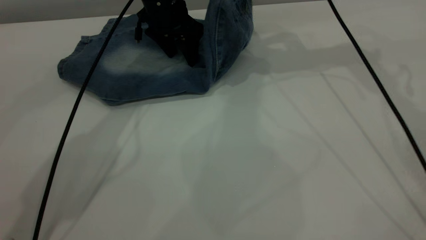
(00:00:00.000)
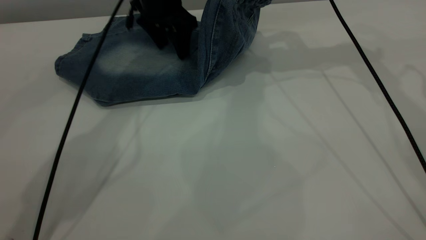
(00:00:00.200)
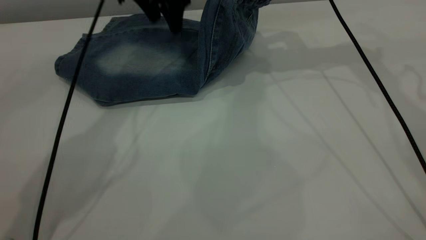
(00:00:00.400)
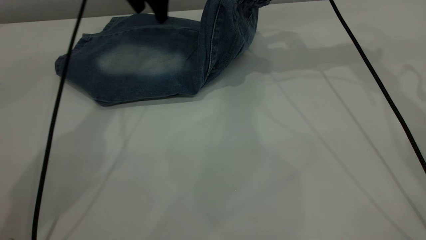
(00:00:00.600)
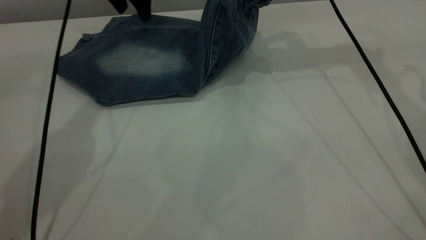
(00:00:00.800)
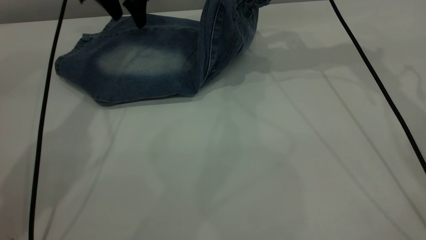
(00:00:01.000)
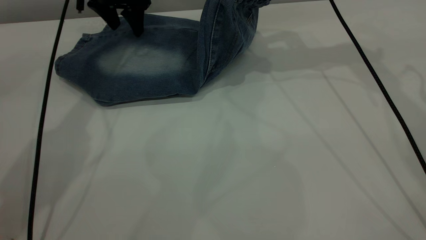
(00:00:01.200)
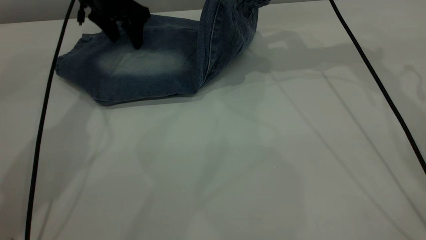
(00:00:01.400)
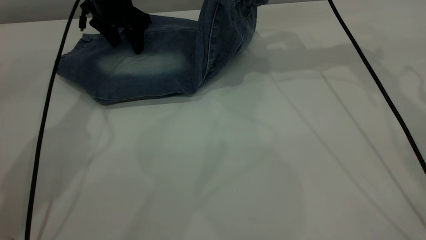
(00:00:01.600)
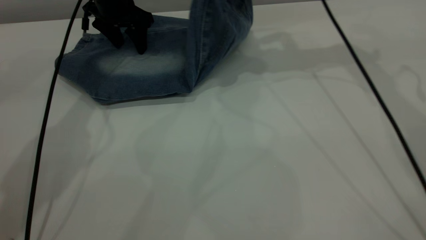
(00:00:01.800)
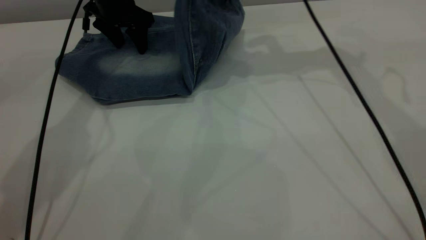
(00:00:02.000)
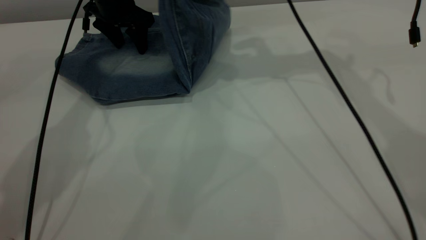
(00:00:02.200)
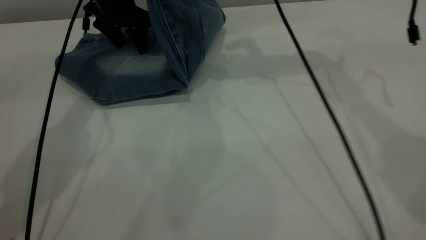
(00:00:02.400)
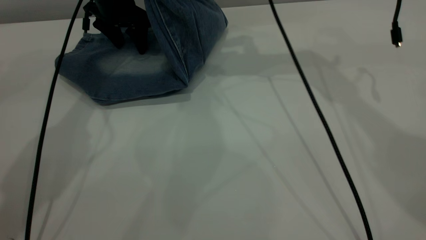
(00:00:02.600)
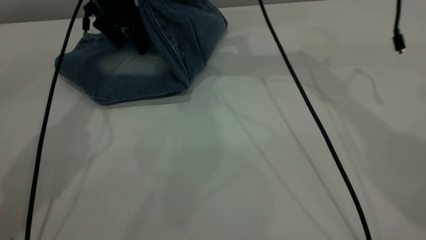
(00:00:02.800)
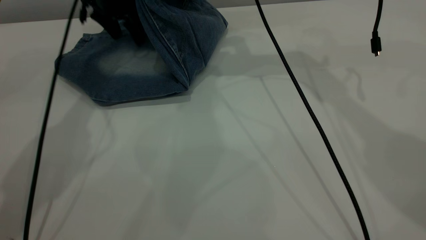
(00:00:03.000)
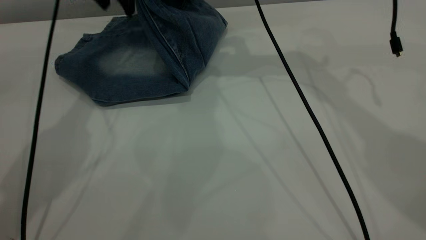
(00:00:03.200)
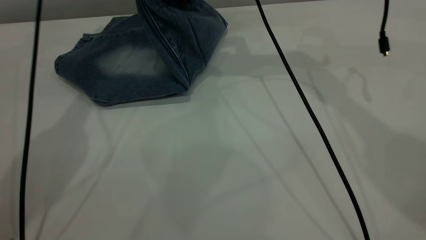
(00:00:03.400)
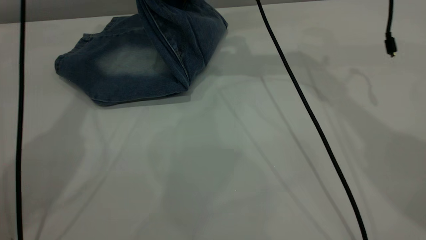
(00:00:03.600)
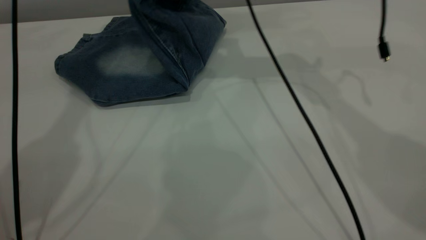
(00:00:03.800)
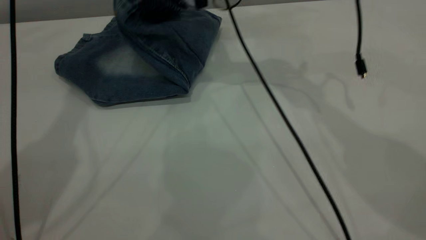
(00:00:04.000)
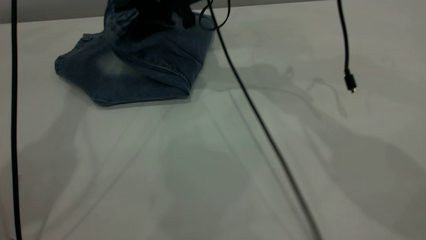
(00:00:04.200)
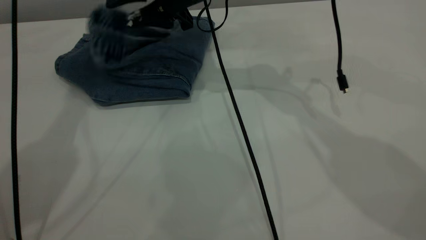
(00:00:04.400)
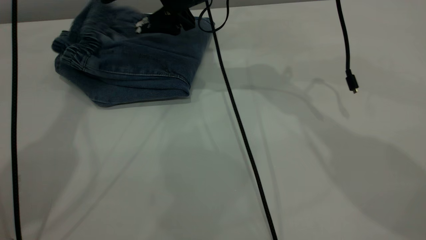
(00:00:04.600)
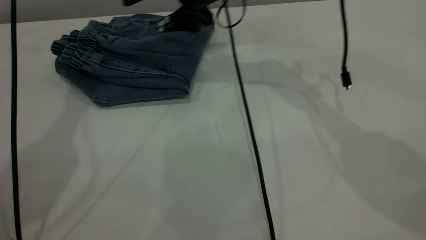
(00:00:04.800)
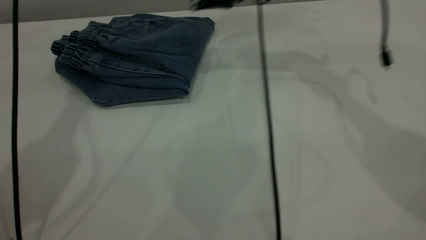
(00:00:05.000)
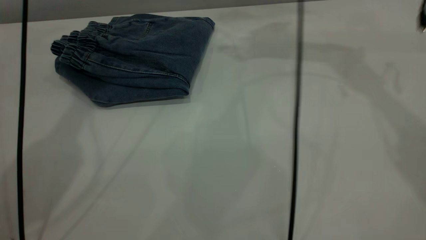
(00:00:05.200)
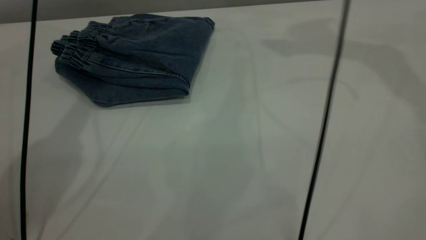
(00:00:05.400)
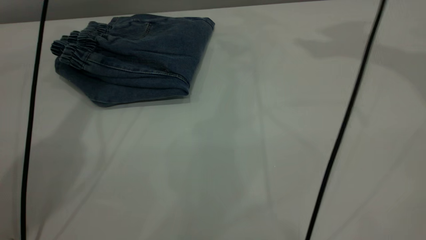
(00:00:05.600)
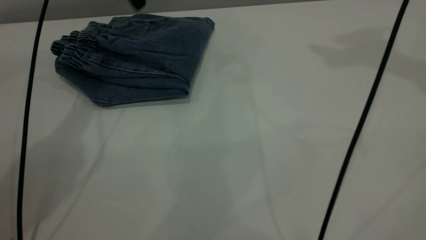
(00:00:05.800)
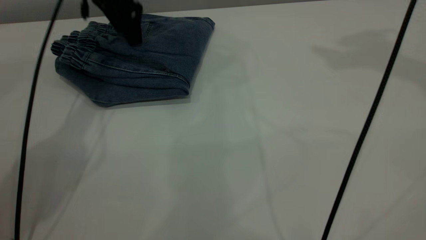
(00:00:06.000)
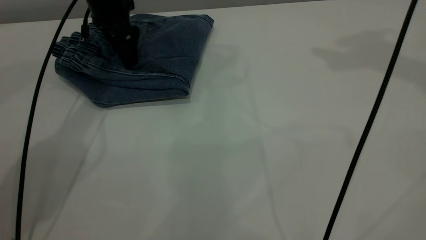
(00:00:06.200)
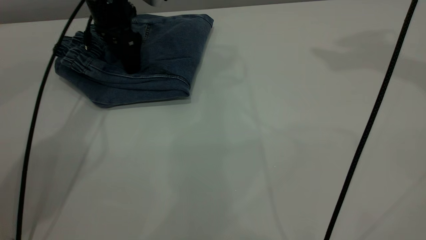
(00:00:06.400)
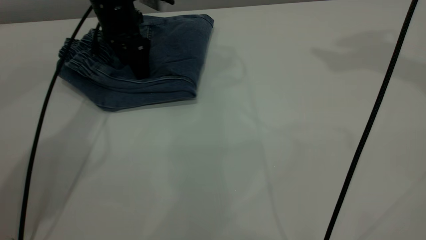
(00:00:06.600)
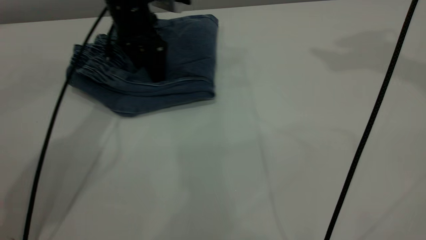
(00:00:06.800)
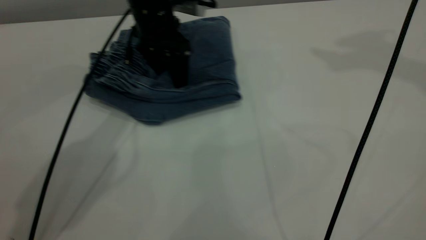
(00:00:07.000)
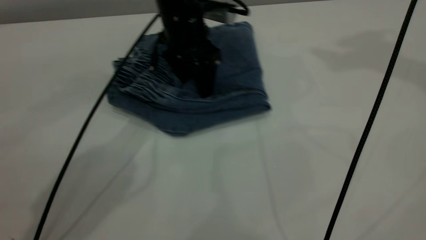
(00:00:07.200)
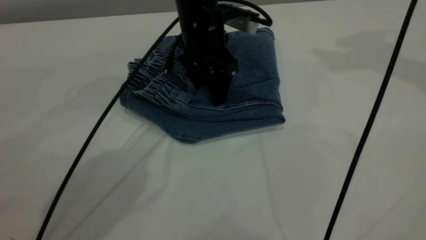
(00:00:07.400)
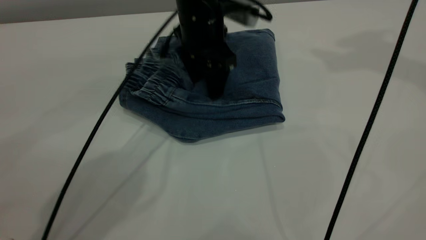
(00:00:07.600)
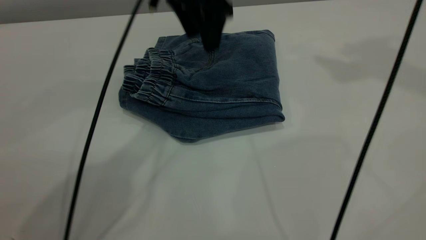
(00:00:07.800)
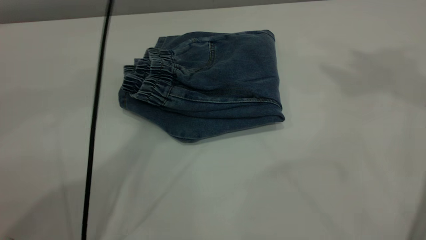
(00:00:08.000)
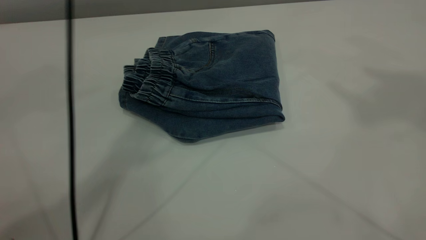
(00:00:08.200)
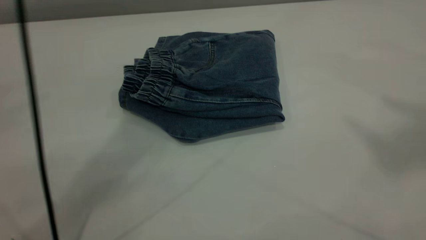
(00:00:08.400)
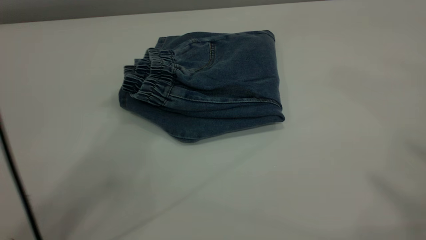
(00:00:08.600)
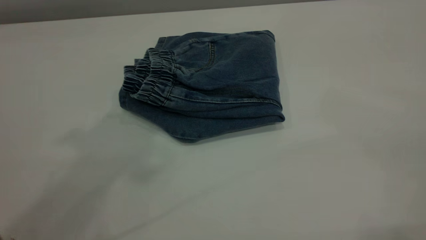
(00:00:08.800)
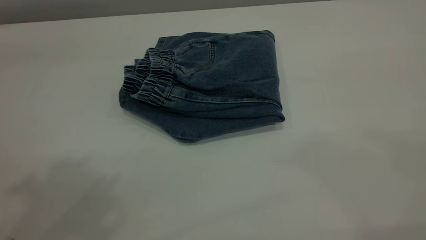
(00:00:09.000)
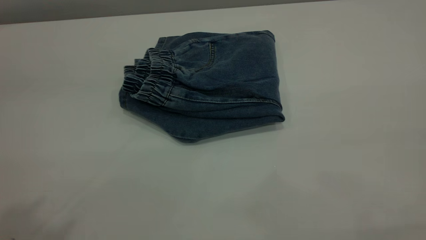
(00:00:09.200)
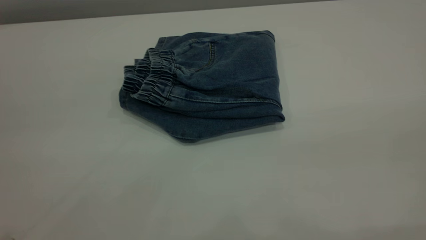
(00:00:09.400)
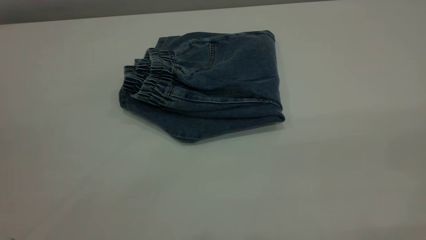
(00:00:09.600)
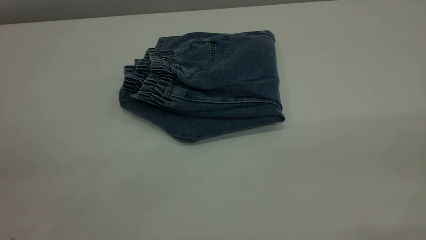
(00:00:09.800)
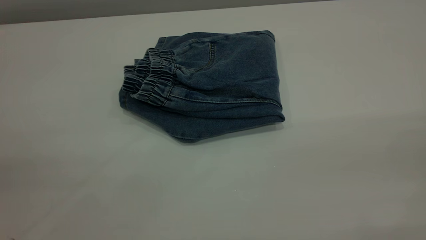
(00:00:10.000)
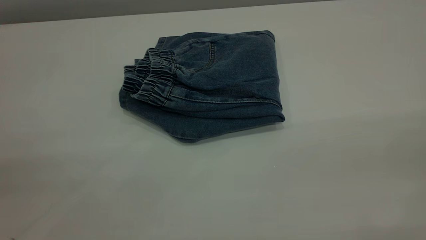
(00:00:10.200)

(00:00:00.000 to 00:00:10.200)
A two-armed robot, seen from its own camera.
Step, 00:00:00.000 - 00:00:05.000: Fold your pants from right to left.
00:00:00.000 - 00:00:01.400: The left gripper shifts approximately 10 cm to the left.
00:00:01.400 - 00:00:03.000: The right gripper shifts about 10 cm to the left.
00:00:03.000 - 00:00:04.400: The right gripper heads to the left and downward, covering some 10 cm, and opens its fingers. The left gripper travels upward by some 25 cm.
00:00:04.400 - 00:00:05.800: The left gripper goes some 20 cm downward. Meanwhile the right gripper heads upward and to the right, covering about 40 cm.
00:00:05.800 - 00:00:07.200: The left gripper travels to the right, downward and backward by roughly 20 cm.
00:00:07.200 - 00:00:08.800: The right gripper travels backward by roughly 35 cm, while the left gripper moves upward and backward, roughly 50 cm.
